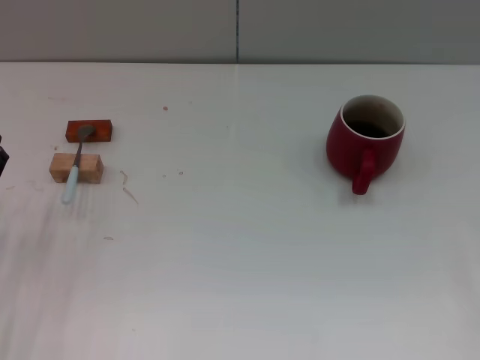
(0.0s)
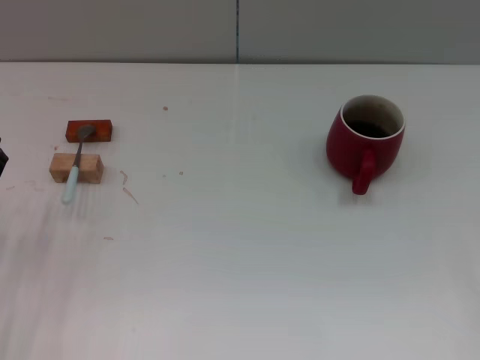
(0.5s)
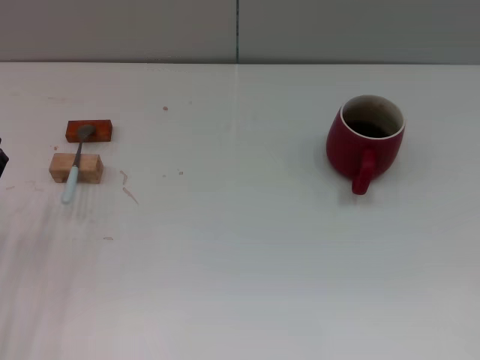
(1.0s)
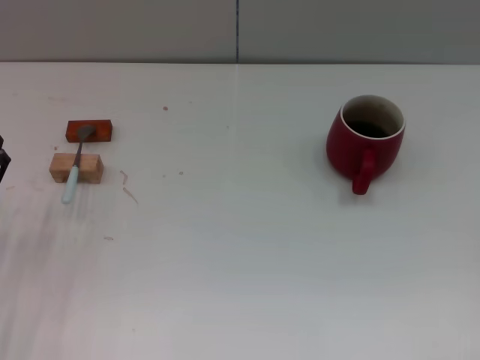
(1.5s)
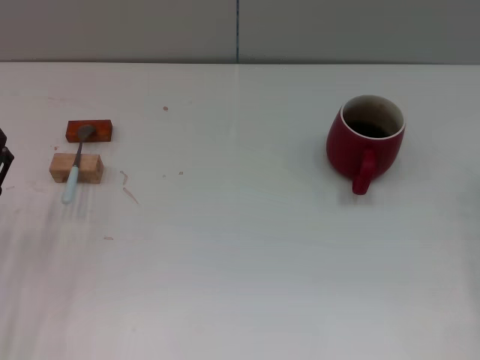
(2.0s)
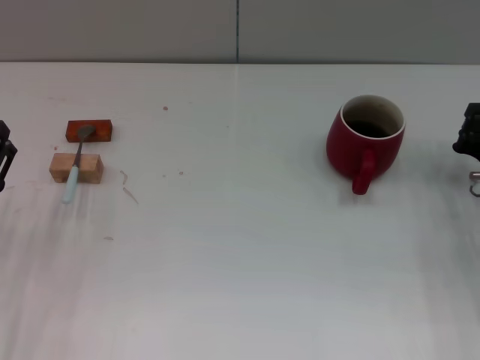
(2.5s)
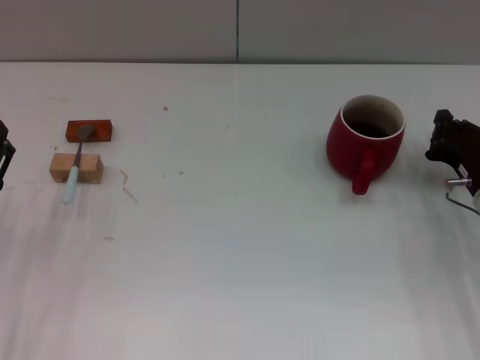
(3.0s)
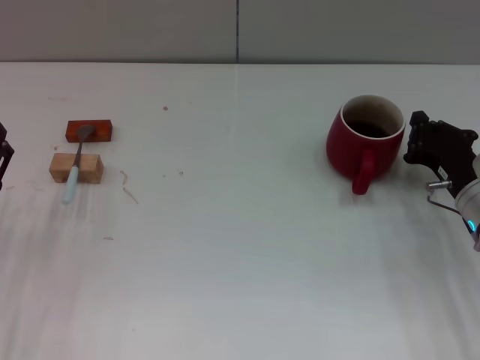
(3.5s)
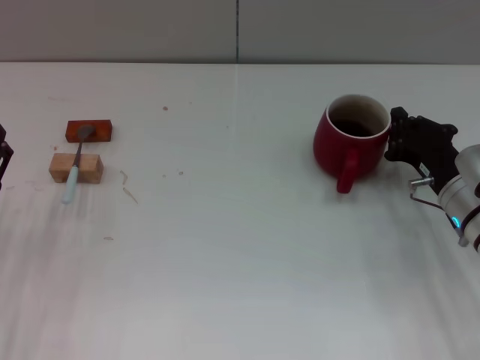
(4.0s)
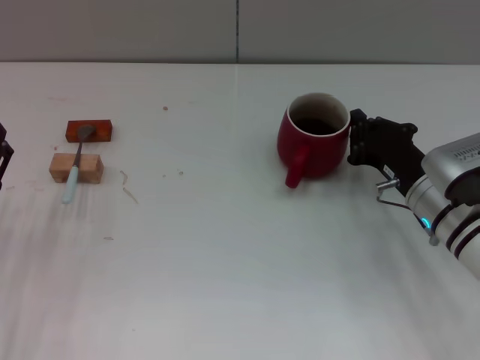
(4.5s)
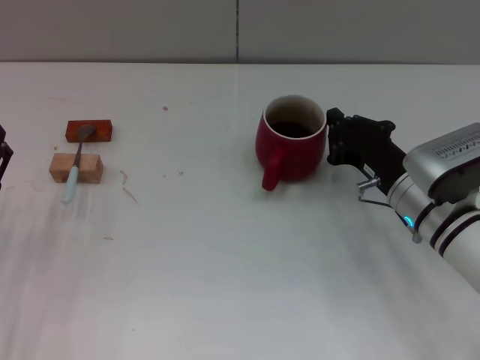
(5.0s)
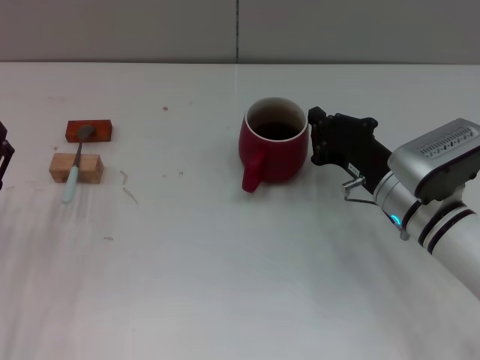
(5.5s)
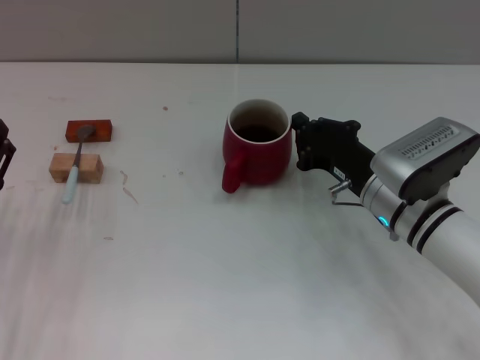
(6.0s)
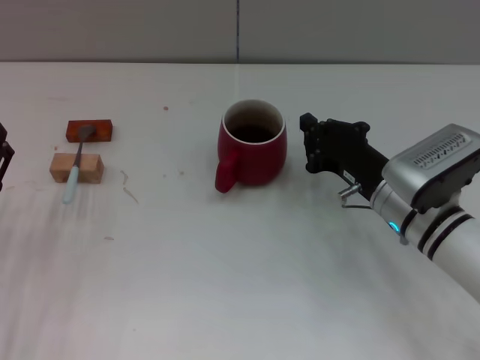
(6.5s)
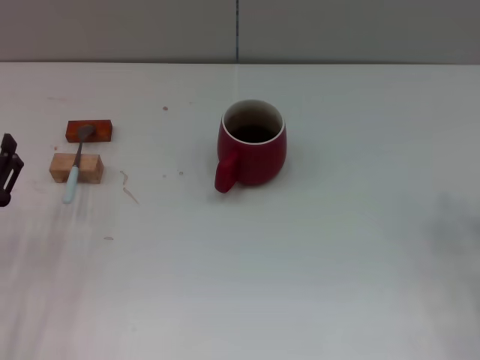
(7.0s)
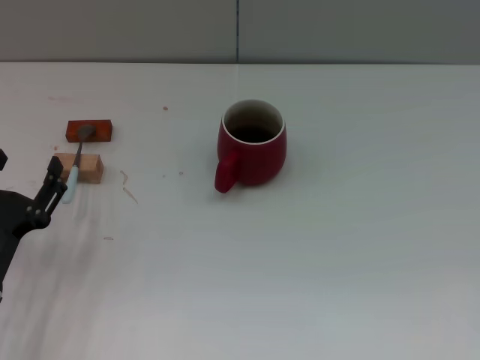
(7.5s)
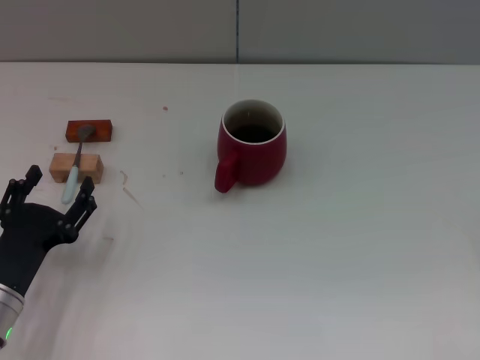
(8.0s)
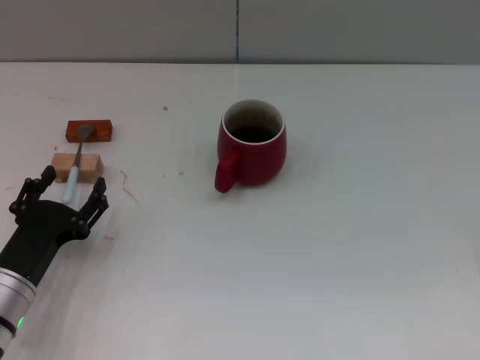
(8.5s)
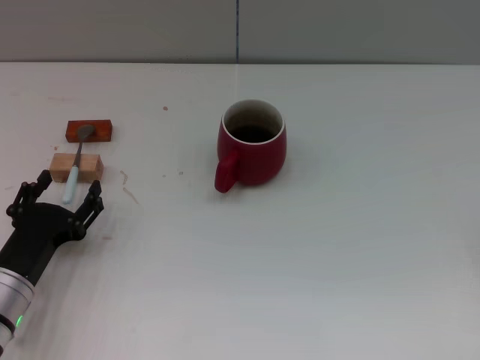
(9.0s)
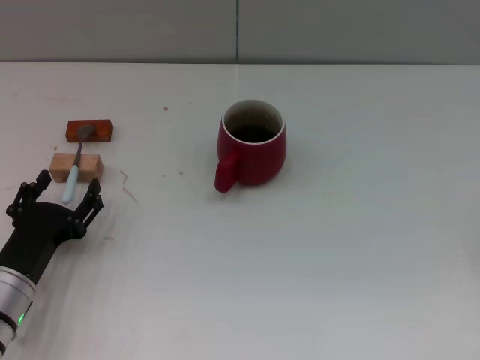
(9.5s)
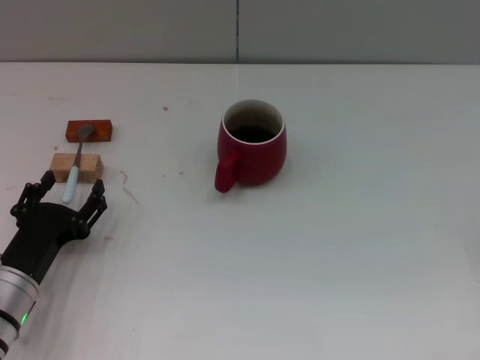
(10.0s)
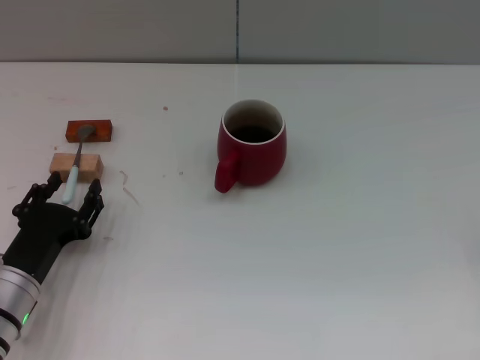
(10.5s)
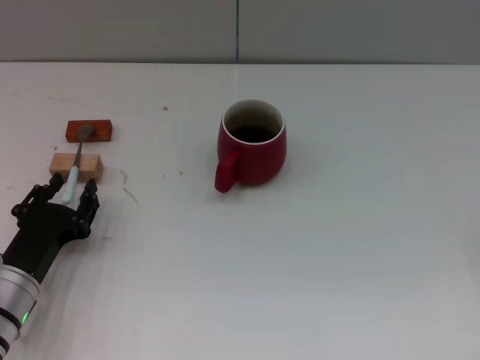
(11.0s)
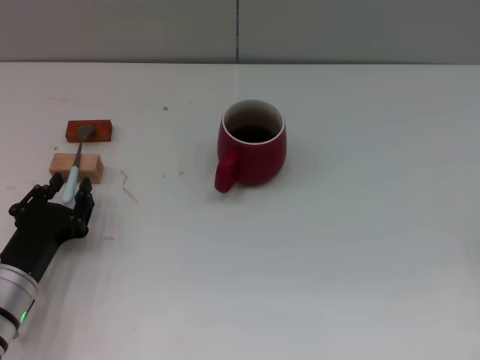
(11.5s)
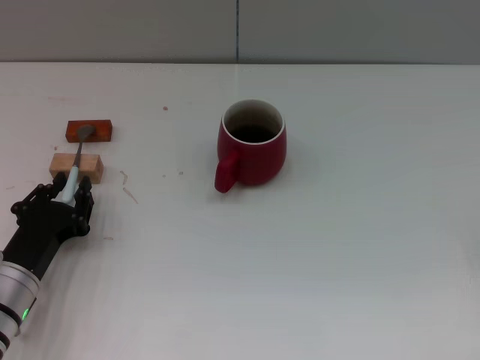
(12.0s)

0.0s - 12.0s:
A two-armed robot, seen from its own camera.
Task of the whole recording: Move the red cup to the center, lift the blue spoon, stir it three times in the cup, and put the spoon into the cup.
Step, 0.0s - 7.0s: Move the cup with coffee to the center of view with the right gripper.
2.0s - 4.0s: The right gripper travels to the left by about 10 cm.
4.0s - 6.0s: The right gripper heads to the left, covering approximately 10 cm.
6.0s - 8.0s: The right gripper moves to the right and backward, some 25 cm, and opens.
8.0s - 10.0s: There are only small adjustments of the grippers.
10.0s - 12.0s: The left gripper closes its fingers.

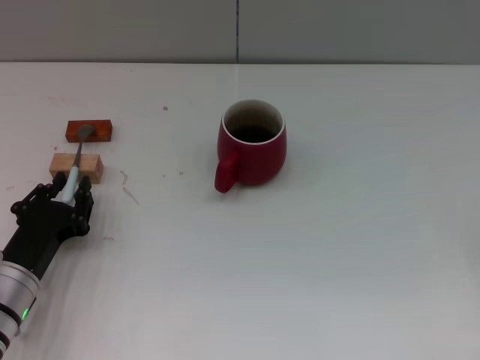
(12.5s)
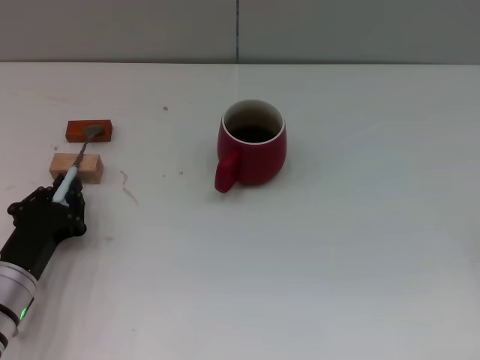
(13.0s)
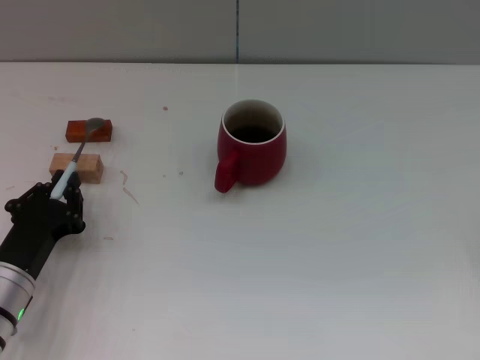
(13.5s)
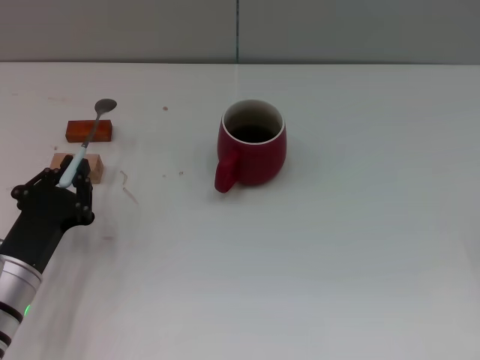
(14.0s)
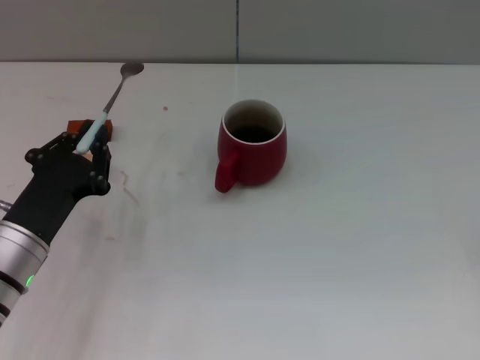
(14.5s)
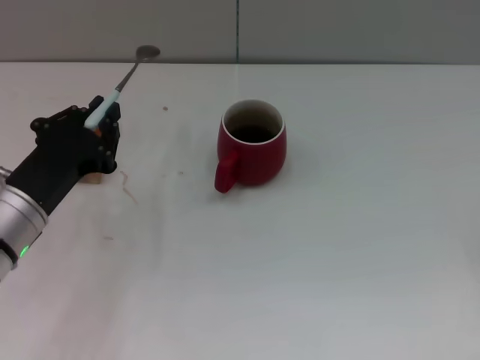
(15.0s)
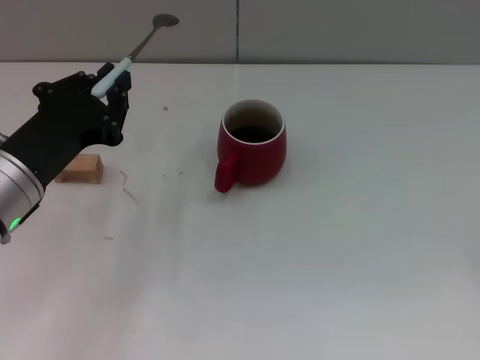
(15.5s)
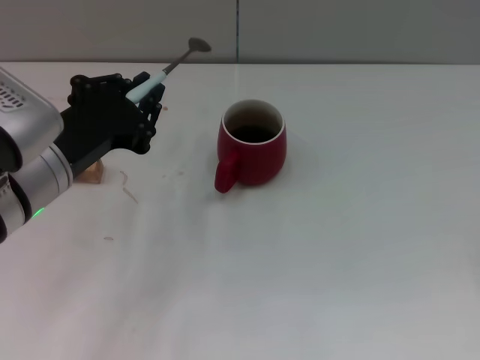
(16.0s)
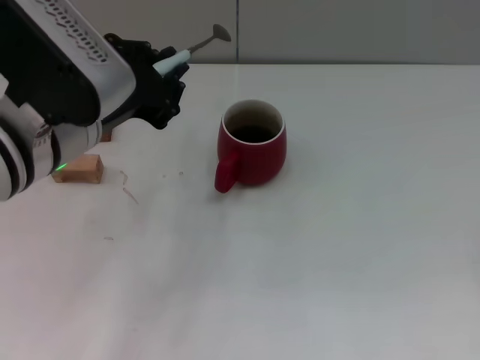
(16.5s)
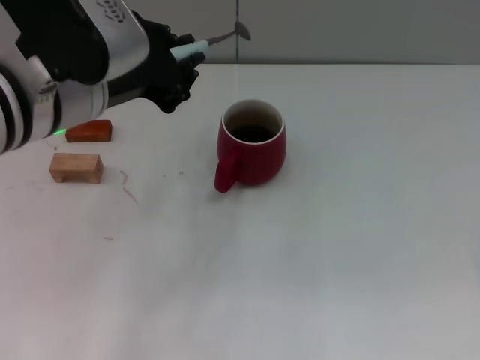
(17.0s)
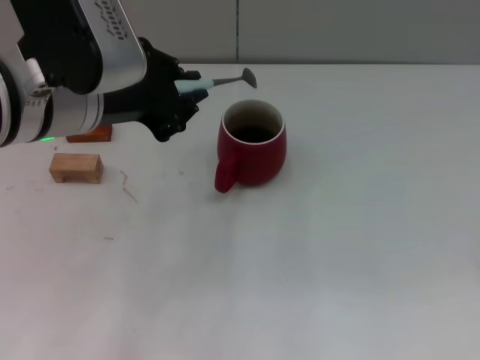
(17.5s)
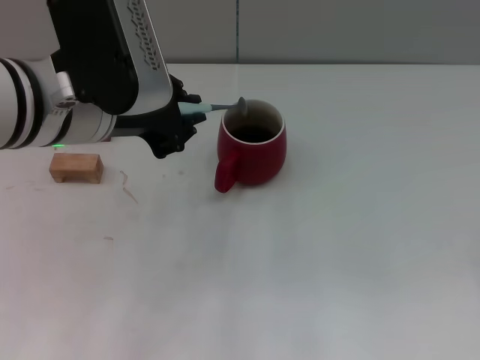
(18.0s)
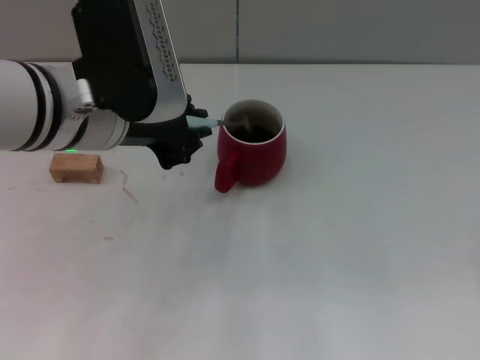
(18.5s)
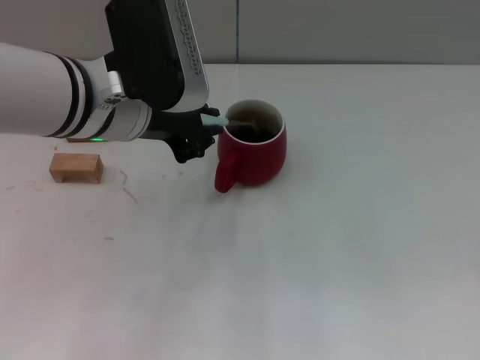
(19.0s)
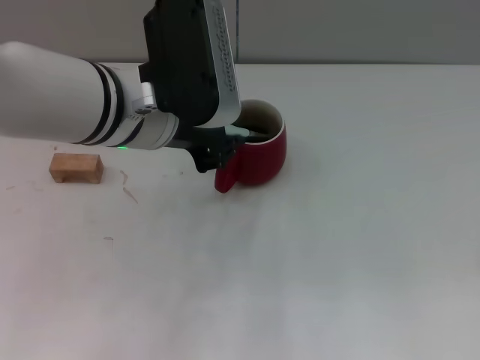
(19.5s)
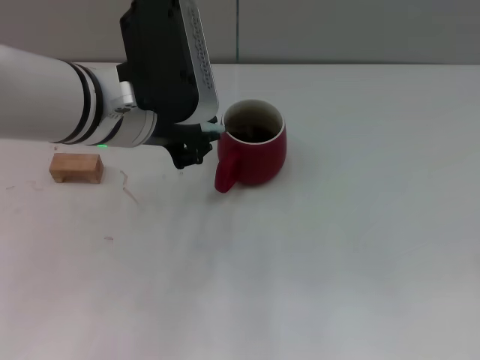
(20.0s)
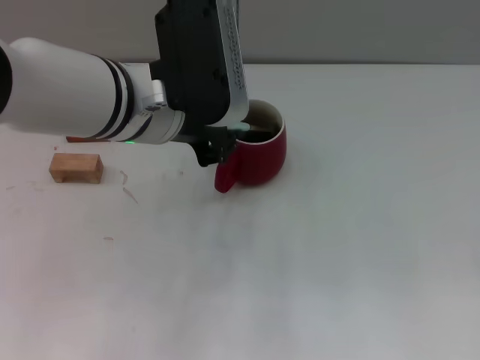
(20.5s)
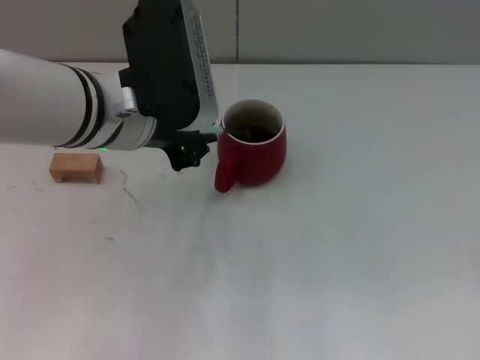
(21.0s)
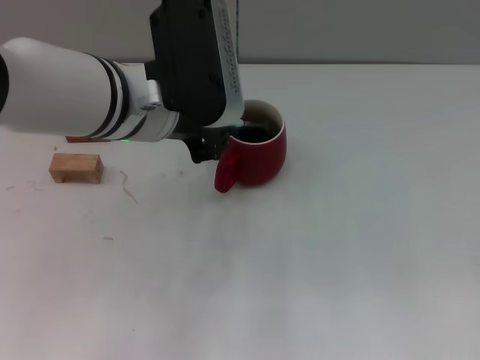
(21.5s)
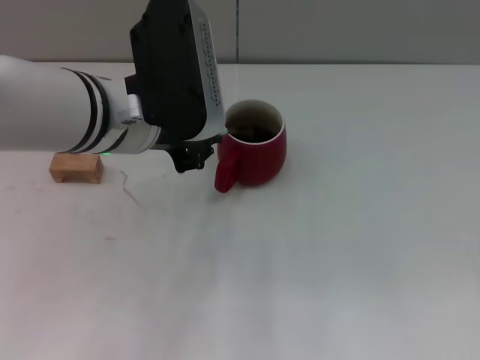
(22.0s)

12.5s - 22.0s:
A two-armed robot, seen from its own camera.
Task of the whole recording: Move the red cup to the center, lift the blue spoon, stir it three times in the cup, and put the spoon into the cup.
Step, 12.5s - 14.5s: Pick up the spoon with the left gripper.
12.5s - 14.5s: The left gripper ends up approximately 5 cm from where it was.
14.5s - 16.5s: The left gripper heads upward and to the right, covering approximately 20 cm.
18.0s - 22.0s: There are only small adjustments of the grippers.

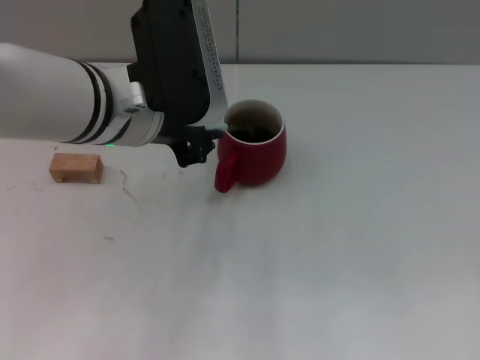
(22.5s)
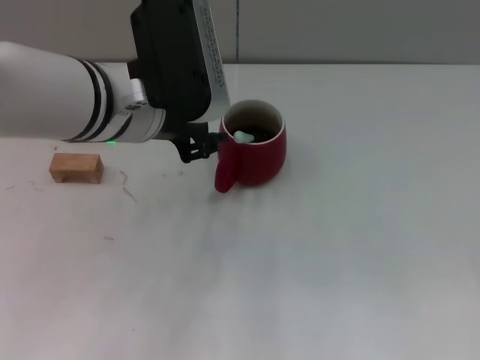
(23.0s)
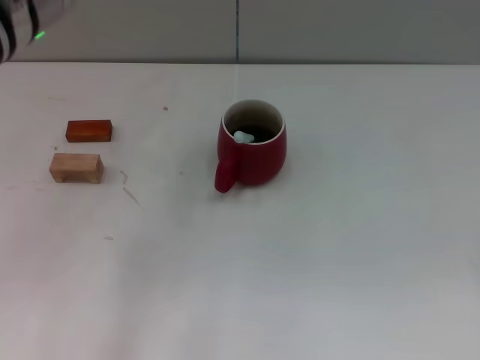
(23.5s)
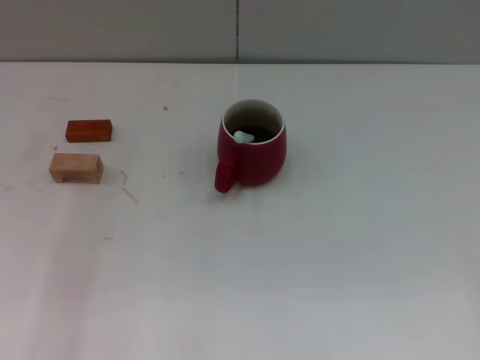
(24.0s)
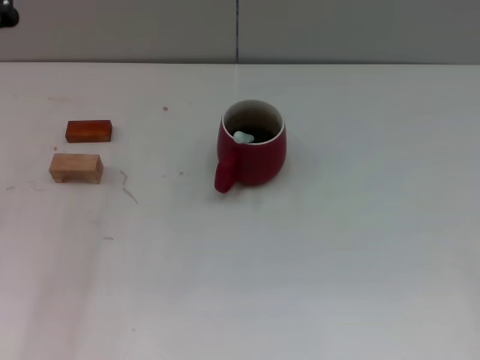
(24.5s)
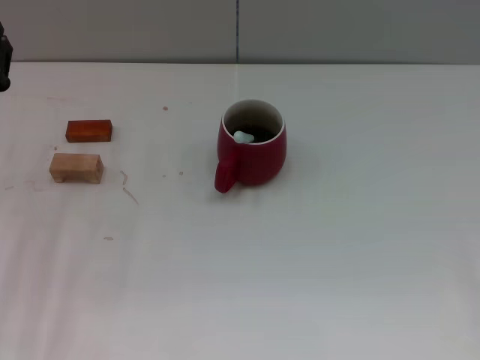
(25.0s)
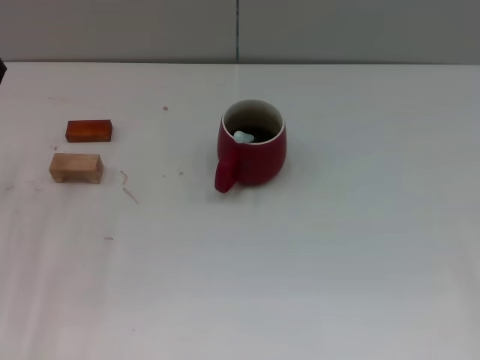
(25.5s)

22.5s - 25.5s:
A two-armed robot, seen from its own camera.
Task of the whole recording: Move the red cup to the center, lift the blue spoon, stir it three times in the cup, and put the spoon into the cup.
22.5s - 24.0s: The left gripper travels to the left by approximately 10 cm.
